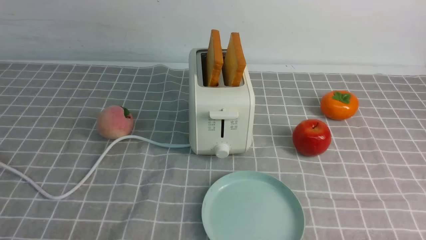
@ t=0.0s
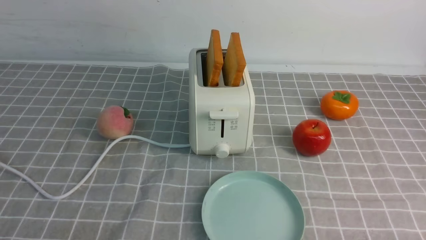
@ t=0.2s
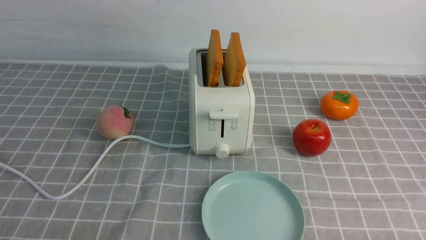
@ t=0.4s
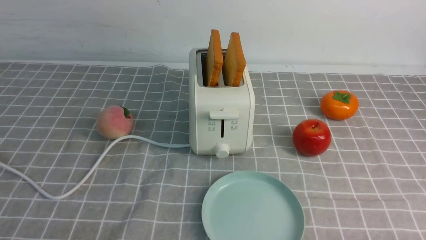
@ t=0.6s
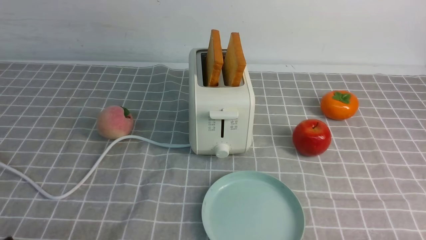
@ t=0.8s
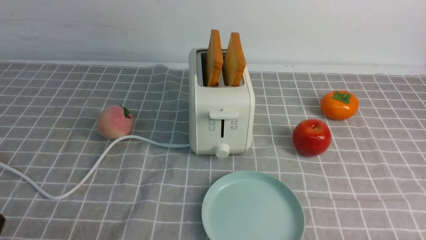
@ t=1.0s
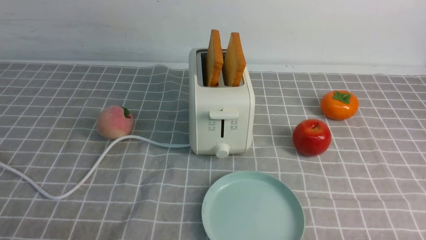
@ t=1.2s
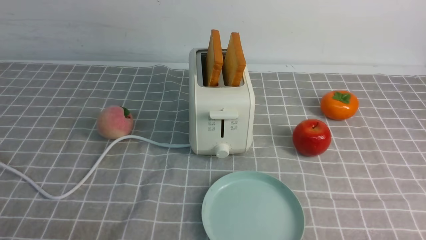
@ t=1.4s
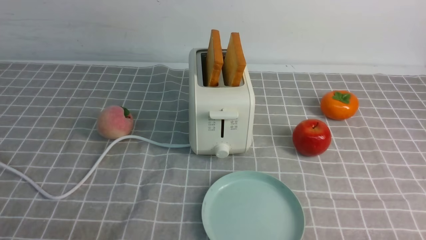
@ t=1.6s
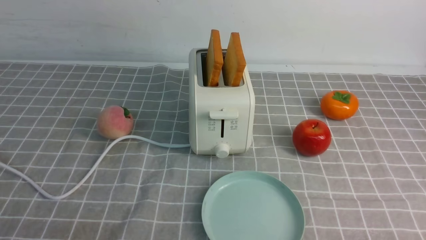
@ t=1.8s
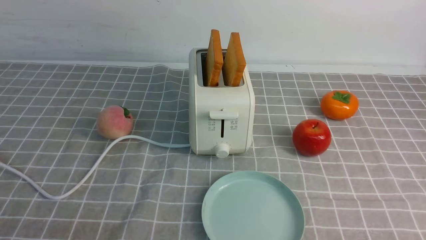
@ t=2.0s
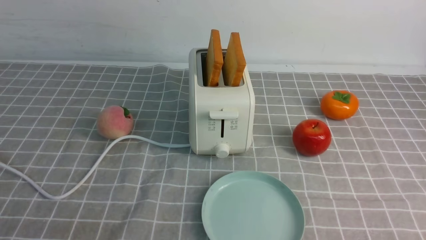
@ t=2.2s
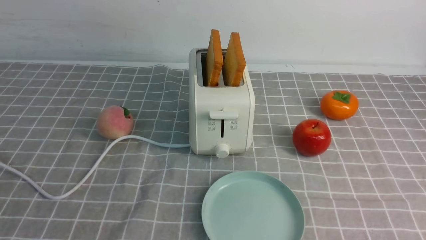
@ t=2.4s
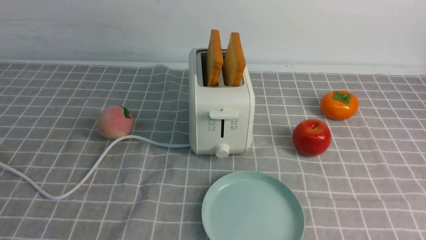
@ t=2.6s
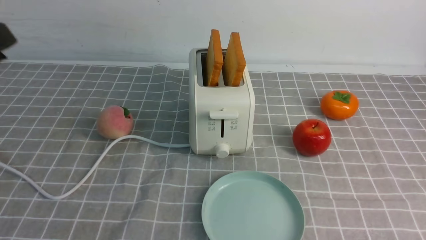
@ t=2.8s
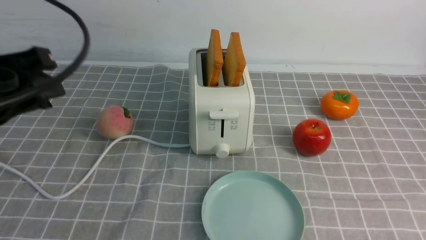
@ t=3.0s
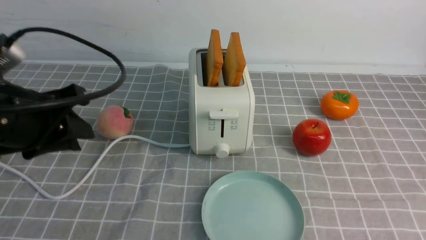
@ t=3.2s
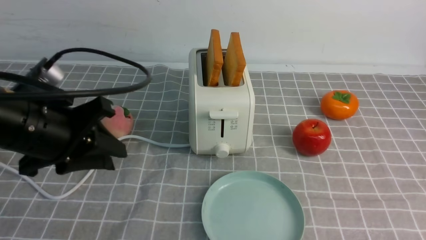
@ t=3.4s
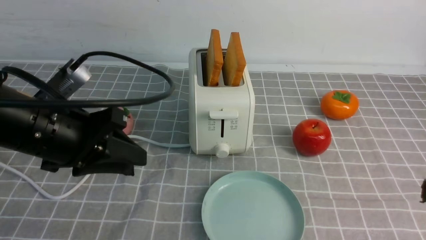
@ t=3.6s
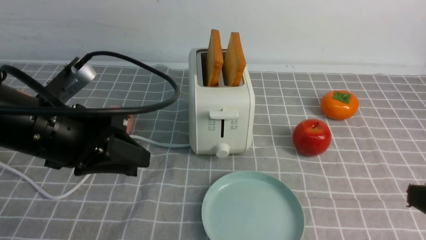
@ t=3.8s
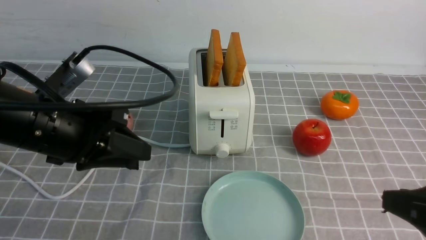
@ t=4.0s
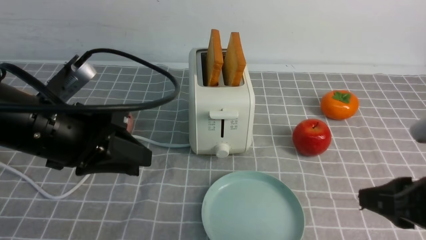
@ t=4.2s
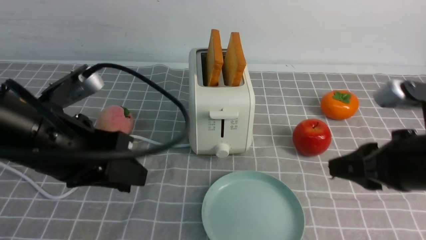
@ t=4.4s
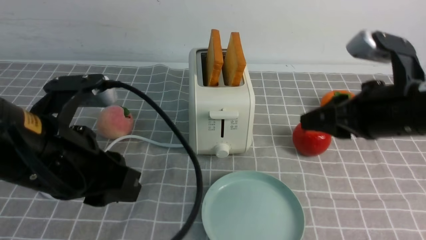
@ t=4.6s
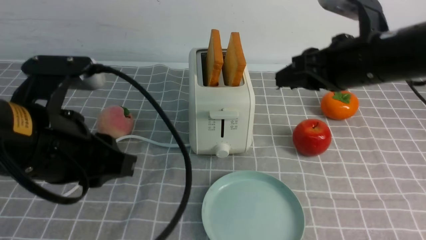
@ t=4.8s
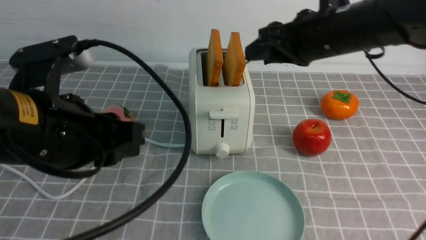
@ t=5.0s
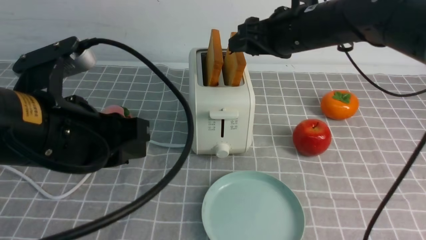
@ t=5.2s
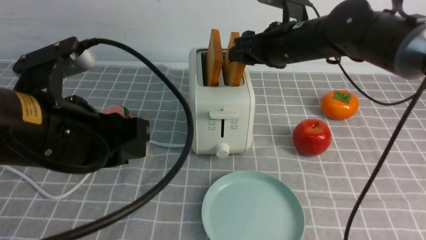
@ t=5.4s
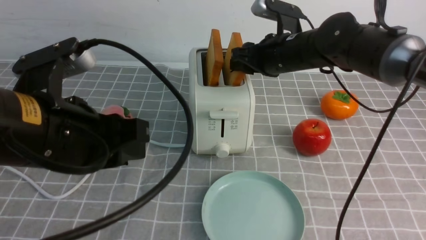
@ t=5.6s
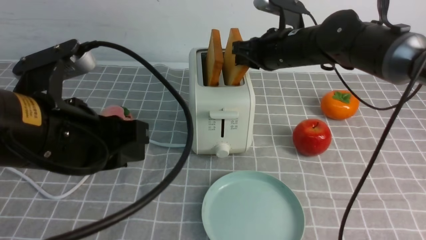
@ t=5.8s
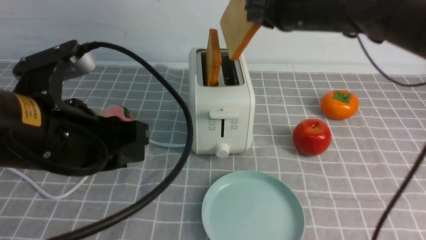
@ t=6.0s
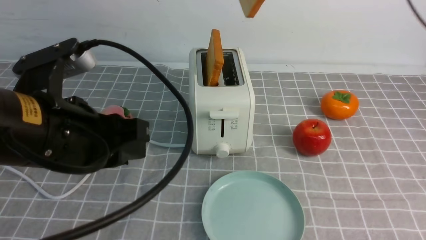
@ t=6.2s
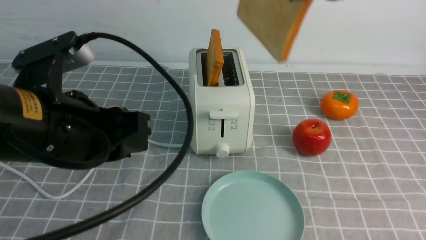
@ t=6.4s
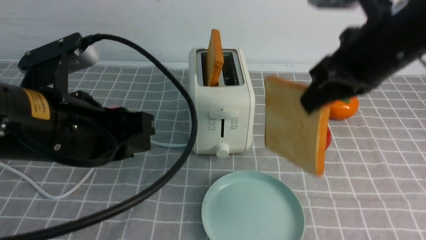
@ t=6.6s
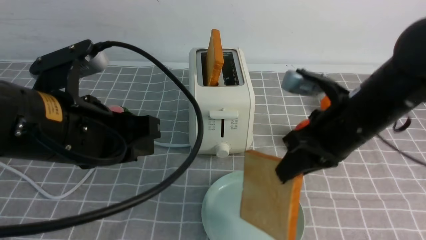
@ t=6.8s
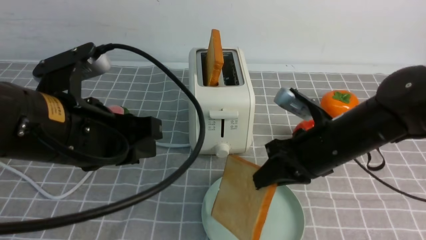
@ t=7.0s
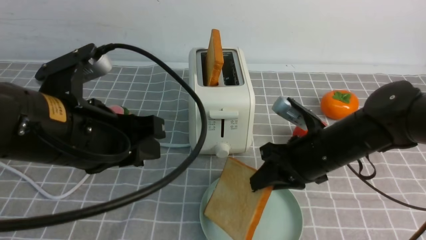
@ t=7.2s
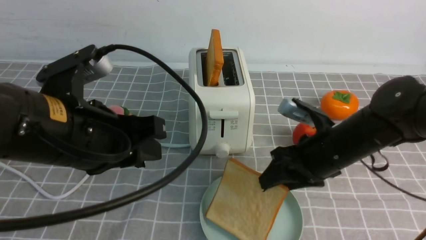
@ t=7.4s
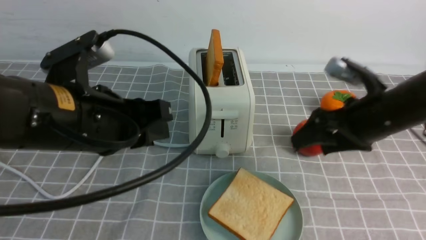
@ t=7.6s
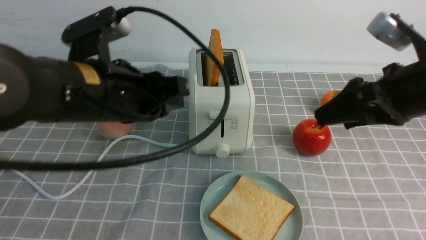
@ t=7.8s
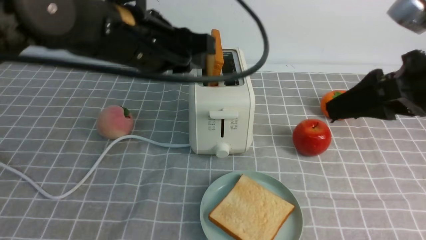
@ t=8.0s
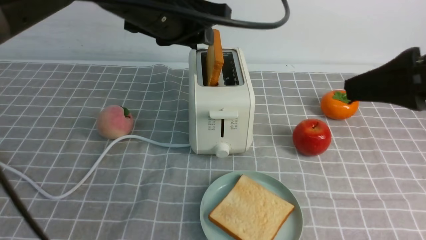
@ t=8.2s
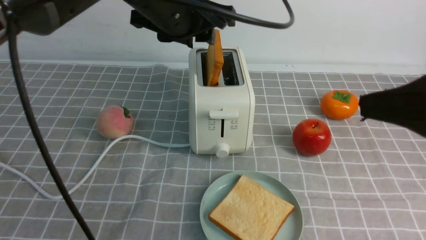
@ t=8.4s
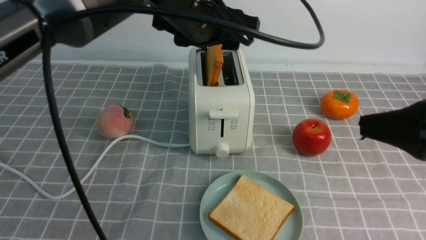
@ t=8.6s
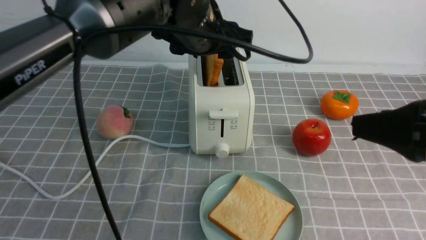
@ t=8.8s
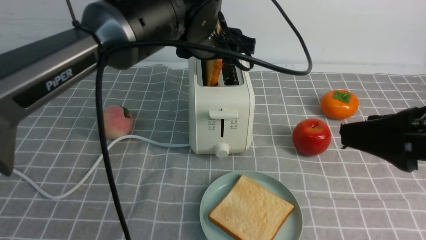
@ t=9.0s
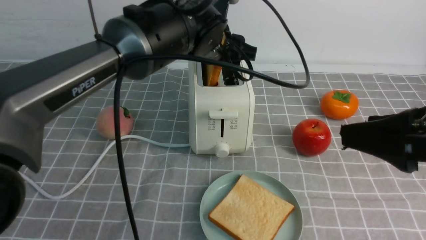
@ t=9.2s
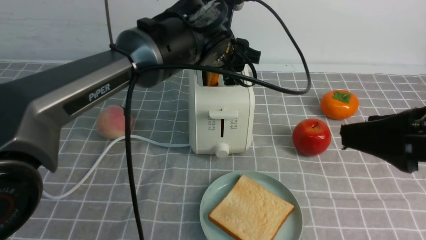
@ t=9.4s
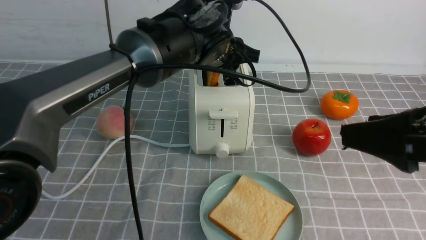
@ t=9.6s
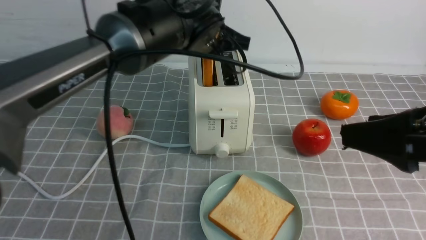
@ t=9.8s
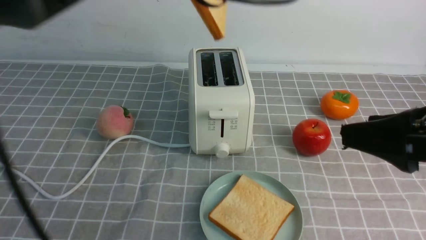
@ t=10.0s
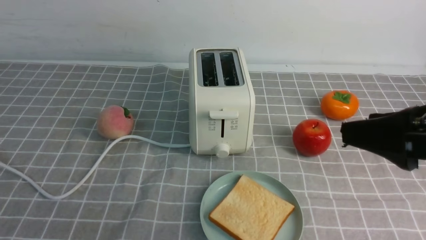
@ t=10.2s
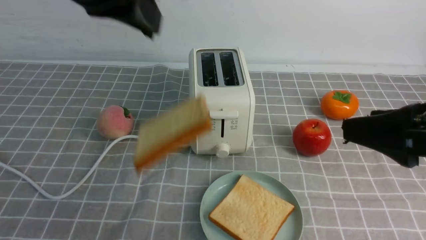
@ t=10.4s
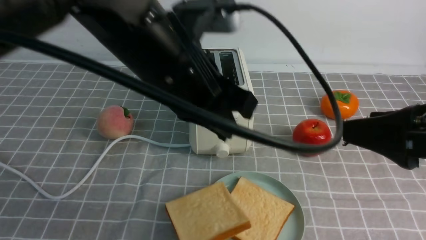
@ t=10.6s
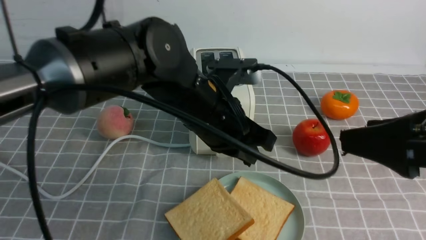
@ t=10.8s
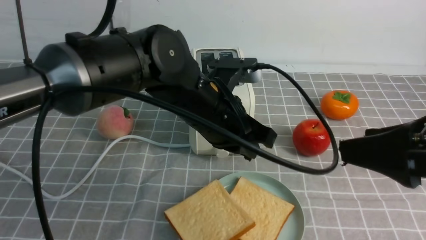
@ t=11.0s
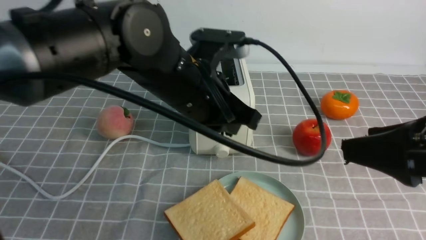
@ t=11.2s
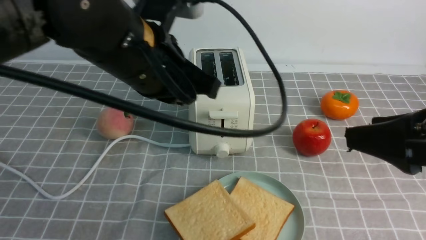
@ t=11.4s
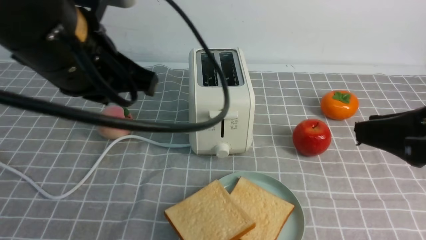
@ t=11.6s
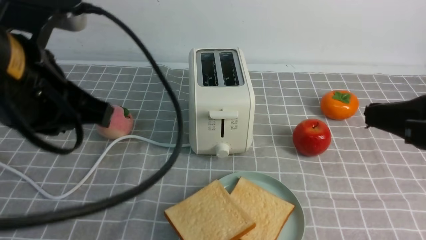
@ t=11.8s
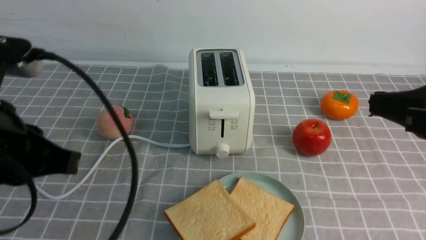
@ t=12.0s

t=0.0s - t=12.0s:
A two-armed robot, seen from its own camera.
Task of the whole recording: take toasted bread from bread machine on grey coffee table place on plate.
Step, t=0.0s - t=6.0s: use the right arm to take out a slice of bread.
Step, t=6.2s - t=7.6s: use the right arm to put a slice of bread into the plate.
Step, t=7.8s - t=10.0s: use the left arm to take out a slice of bread.
Step, t=10.2s - t=11.2s: use the left arm to put a slice of bread into the empty plate.
t=1.6s - t=3.0s: The left gripper shifts roughly 20 cm forward and upward.
t=3.0s - t=4.4s: The right gripper moves forward and to the left, some 15 cm, while the left gripper shifts about 5 cm to the right.
t=4.4s - t=6.0s: The right gripper heads forward, covering about 20 cm.
t=6.0s - t=7.6s: The right gripper goes up and down, some 20 cm each way, reversing 2 times, and opens its fingers.
t=7.6s - t=9.0s: The right gripper is displaced backward and upward by approximately 15 cm; the left gripper heads forward and to the right, covering about 20 cm, and opens.
t=9.0s - t=10.4s: The left gripper shifts about 20 cm backward, upward and to the left, and closes its fingers.
t=10.4s - t=12.0s: The left gripper shifts roughly 15 cm to the left, backward and downward. Meanwhile the right gripper closes up.

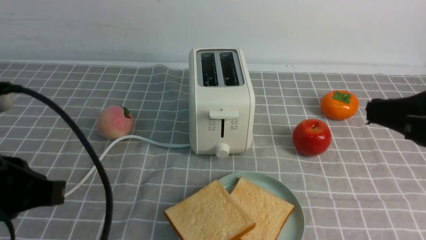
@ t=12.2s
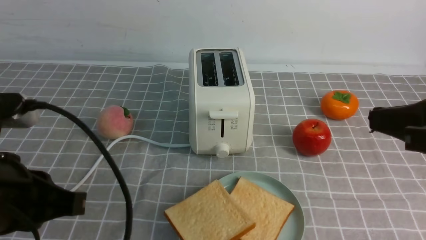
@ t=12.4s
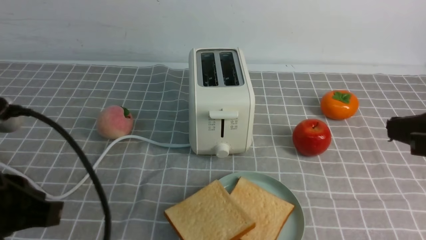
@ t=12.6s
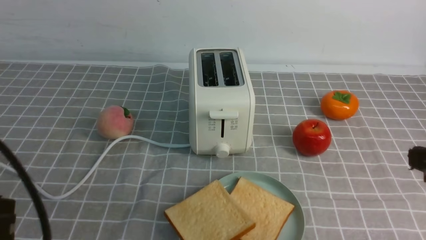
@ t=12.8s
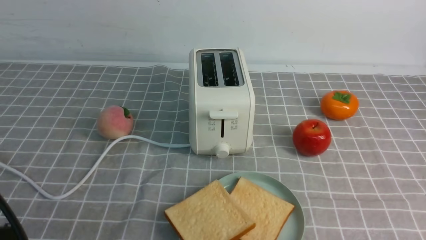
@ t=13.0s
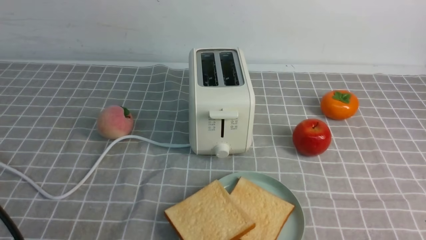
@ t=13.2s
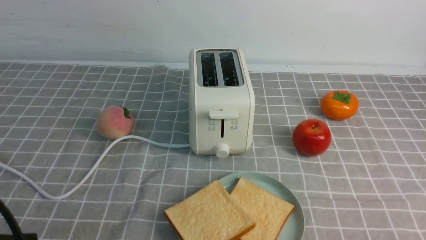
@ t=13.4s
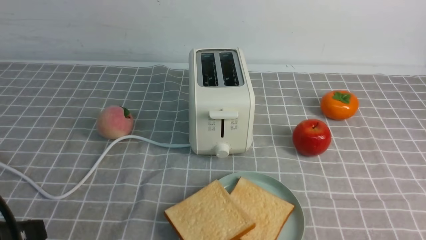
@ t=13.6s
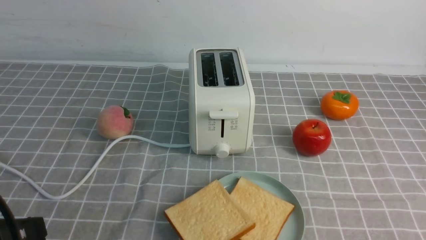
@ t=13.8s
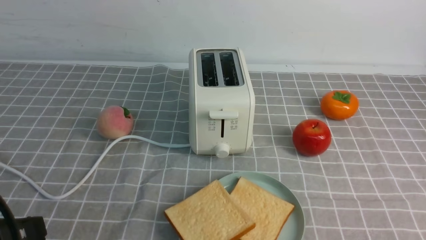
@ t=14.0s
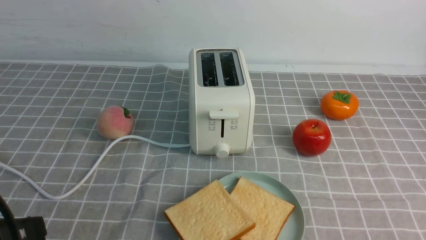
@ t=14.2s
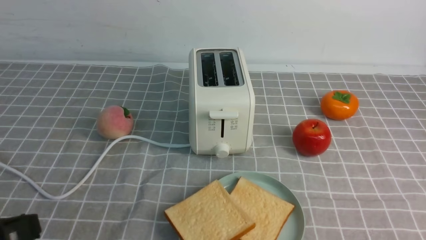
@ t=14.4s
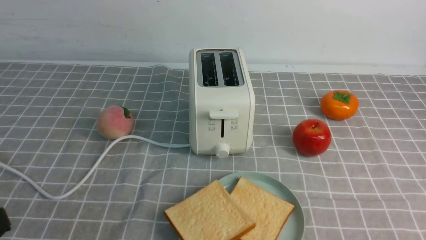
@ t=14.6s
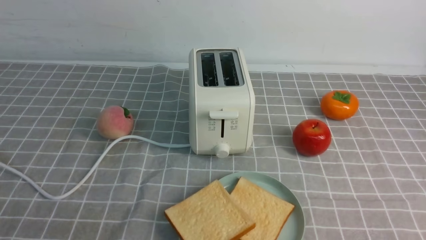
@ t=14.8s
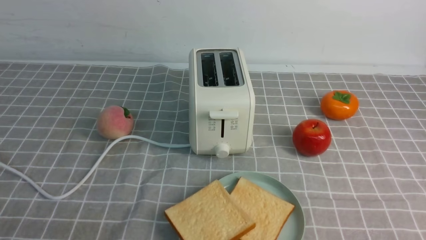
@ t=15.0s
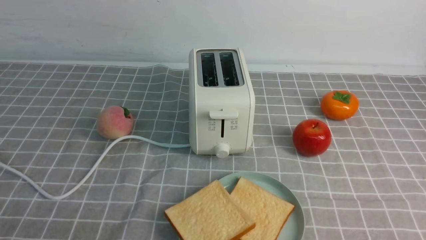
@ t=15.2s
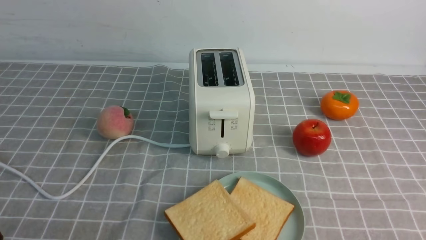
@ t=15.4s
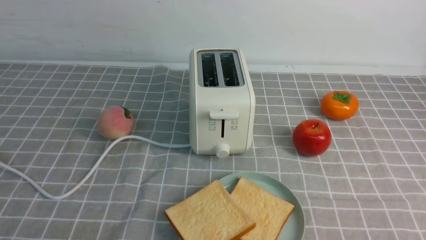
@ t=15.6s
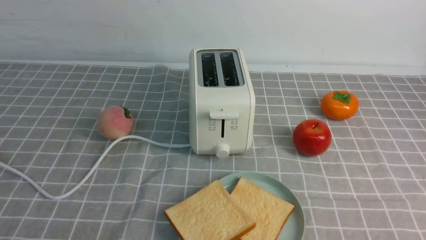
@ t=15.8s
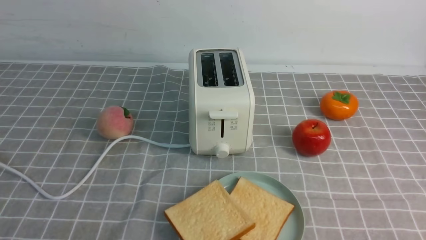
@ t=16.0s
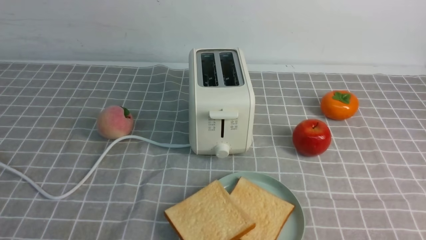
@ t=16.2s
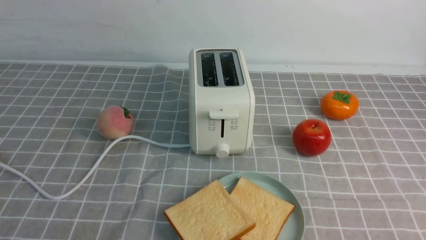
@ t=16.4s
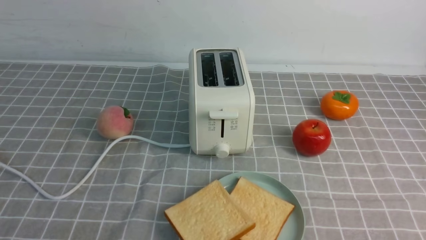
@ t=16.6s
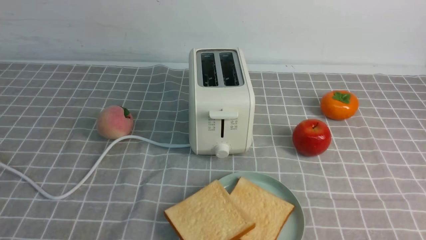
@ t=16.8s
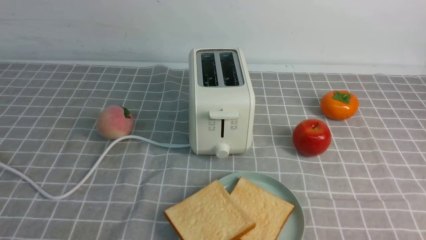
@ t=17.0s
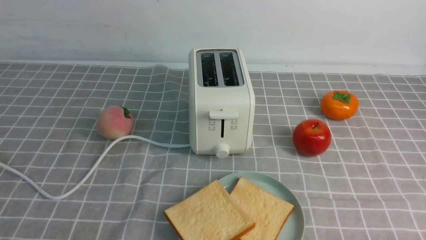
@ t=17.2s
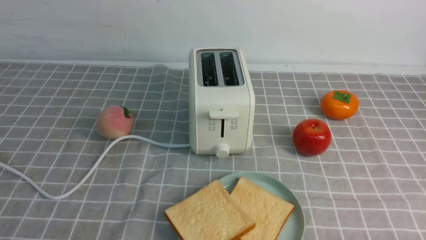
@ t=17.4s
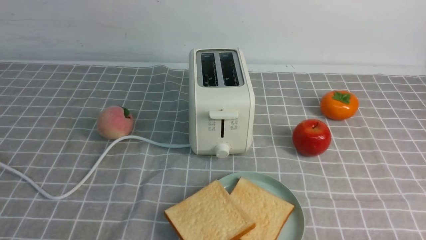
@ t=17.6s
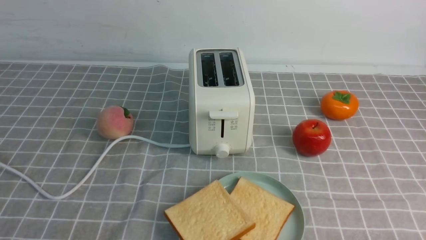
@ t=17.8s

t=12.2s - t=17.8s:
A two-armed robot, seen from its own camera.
Task of the whole recording: take toasted bread from bread machine on grey coffee table place on plate.
t=12.2s - t=13.6s: The right gripper moves downward and backward, about 15 cm, while the left gripper shifts about 5 cm backward.
t=13.6s - t=15.0s: The left gripper ends up some 5 cm from where it was.
